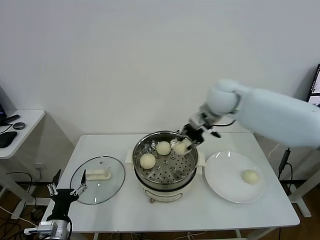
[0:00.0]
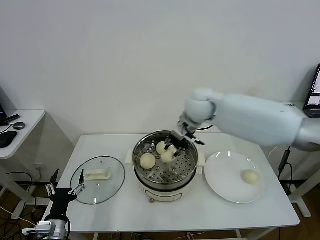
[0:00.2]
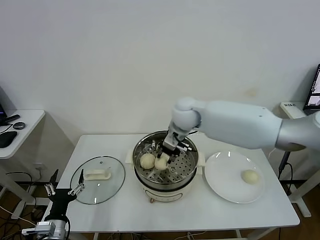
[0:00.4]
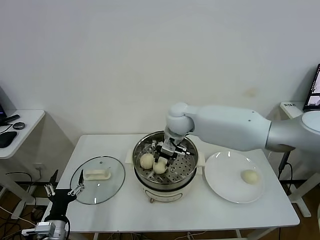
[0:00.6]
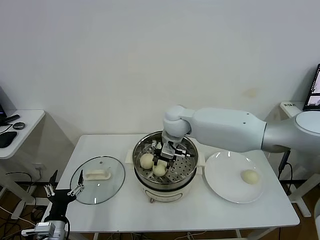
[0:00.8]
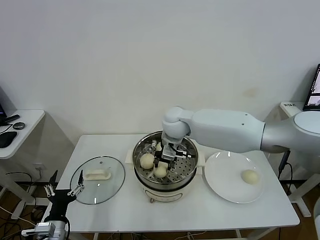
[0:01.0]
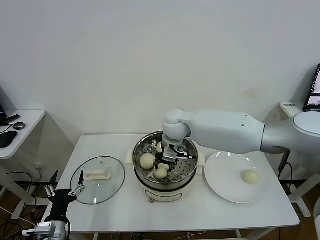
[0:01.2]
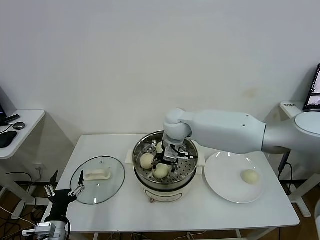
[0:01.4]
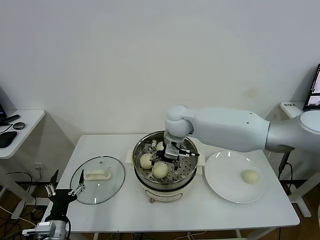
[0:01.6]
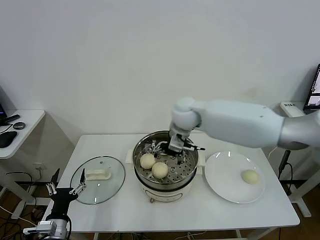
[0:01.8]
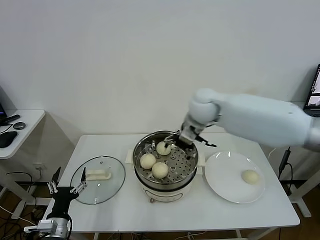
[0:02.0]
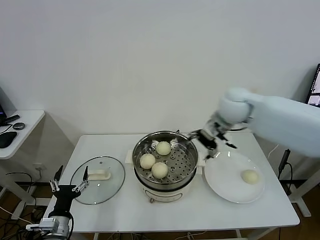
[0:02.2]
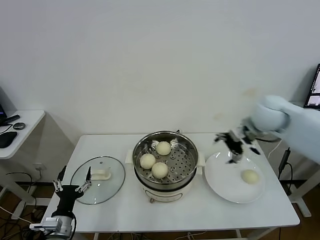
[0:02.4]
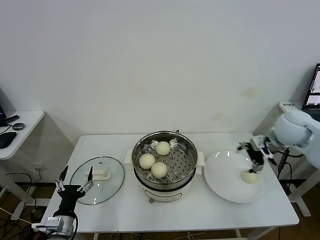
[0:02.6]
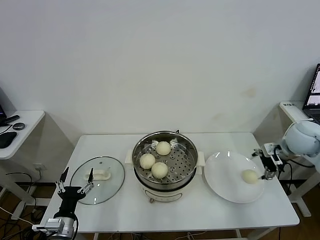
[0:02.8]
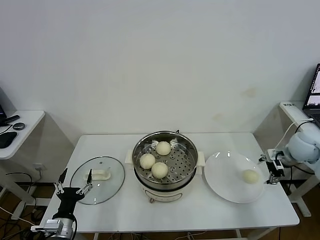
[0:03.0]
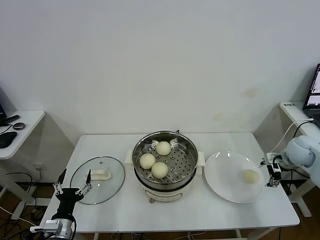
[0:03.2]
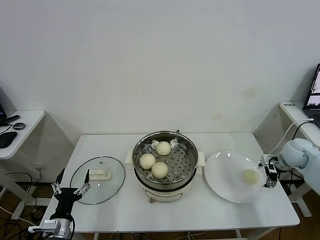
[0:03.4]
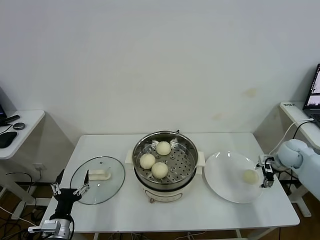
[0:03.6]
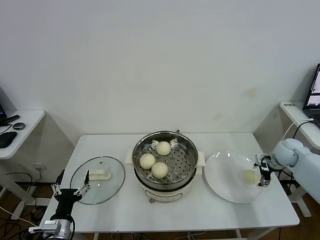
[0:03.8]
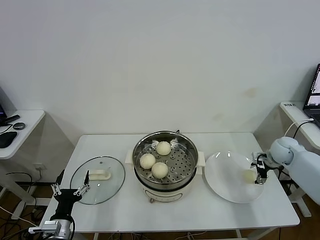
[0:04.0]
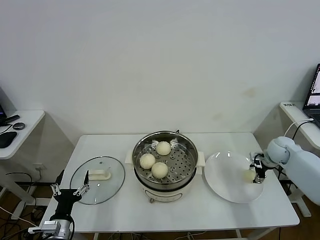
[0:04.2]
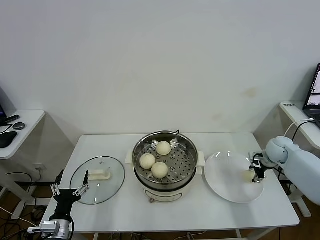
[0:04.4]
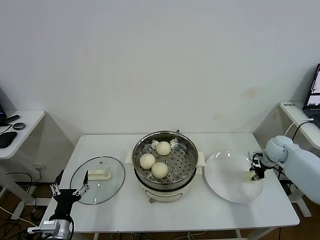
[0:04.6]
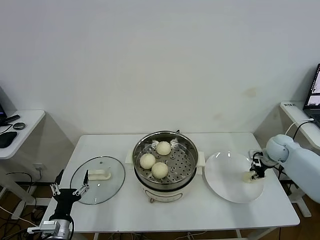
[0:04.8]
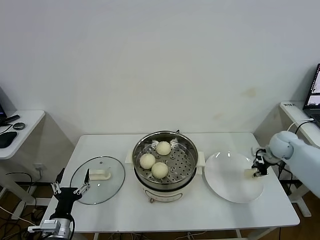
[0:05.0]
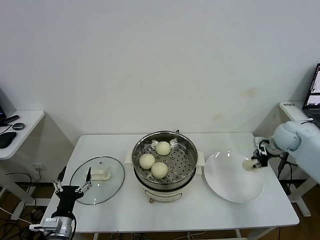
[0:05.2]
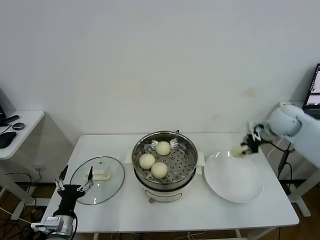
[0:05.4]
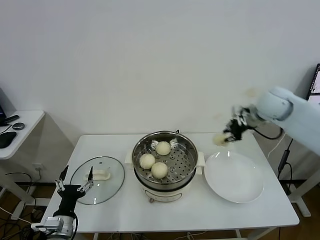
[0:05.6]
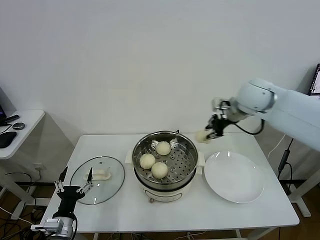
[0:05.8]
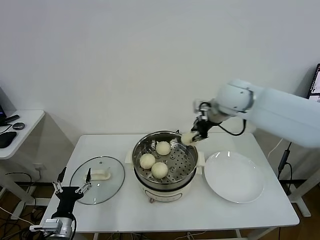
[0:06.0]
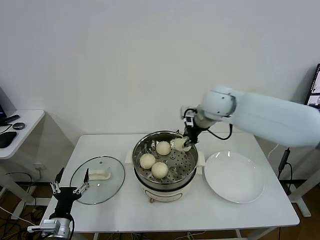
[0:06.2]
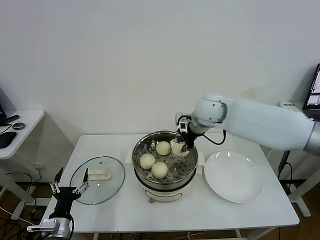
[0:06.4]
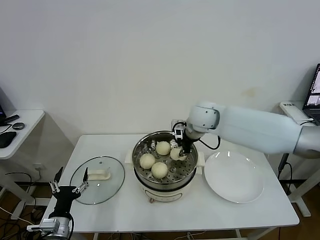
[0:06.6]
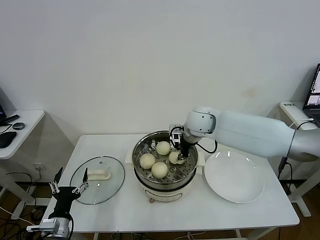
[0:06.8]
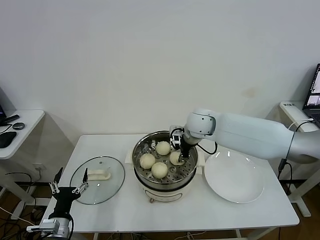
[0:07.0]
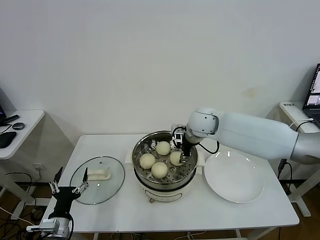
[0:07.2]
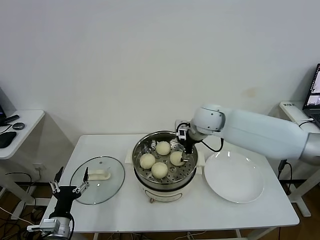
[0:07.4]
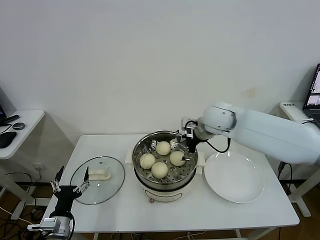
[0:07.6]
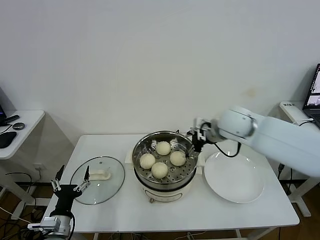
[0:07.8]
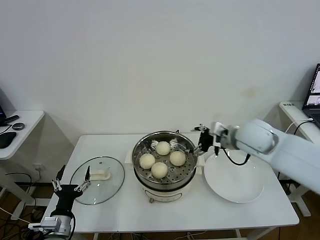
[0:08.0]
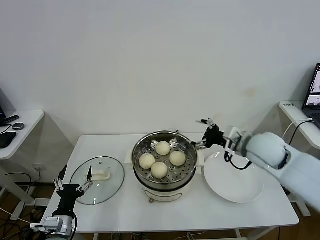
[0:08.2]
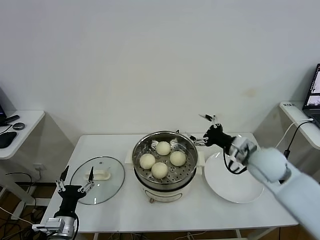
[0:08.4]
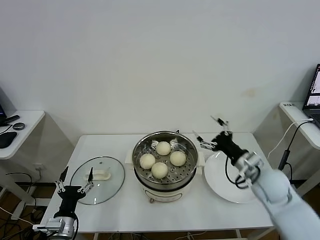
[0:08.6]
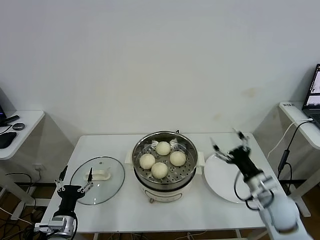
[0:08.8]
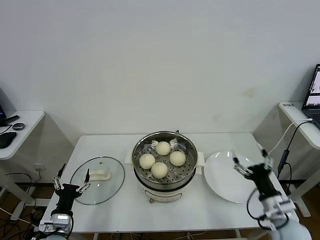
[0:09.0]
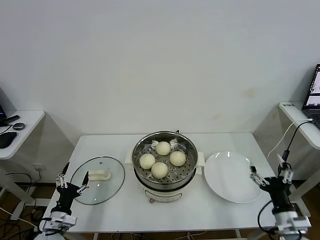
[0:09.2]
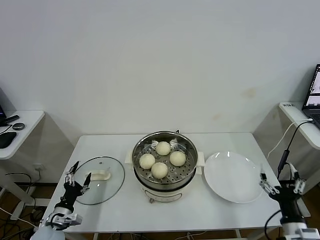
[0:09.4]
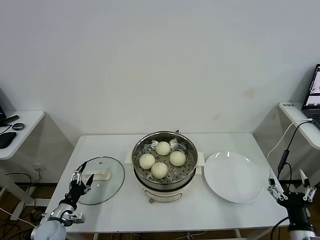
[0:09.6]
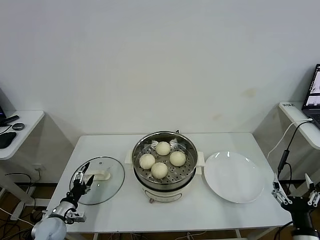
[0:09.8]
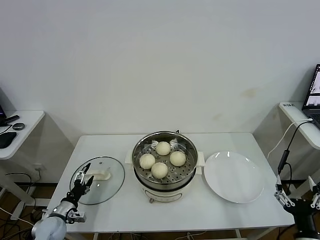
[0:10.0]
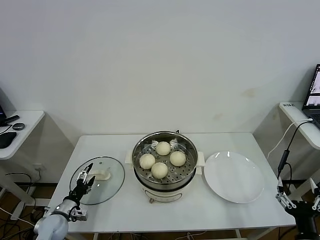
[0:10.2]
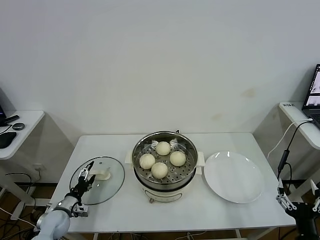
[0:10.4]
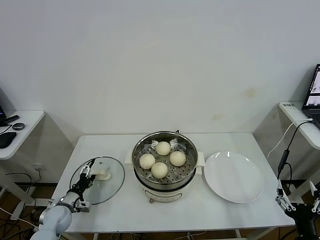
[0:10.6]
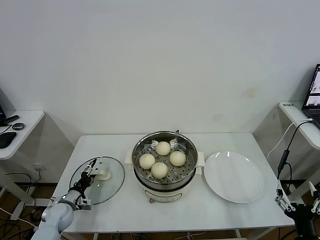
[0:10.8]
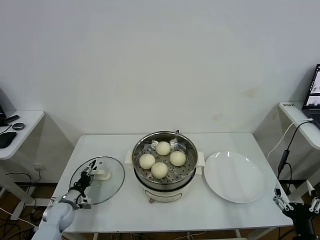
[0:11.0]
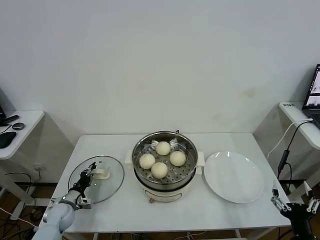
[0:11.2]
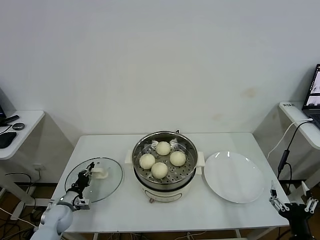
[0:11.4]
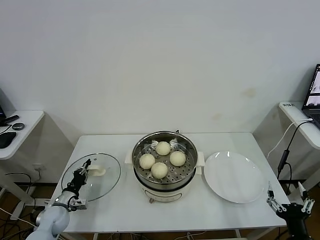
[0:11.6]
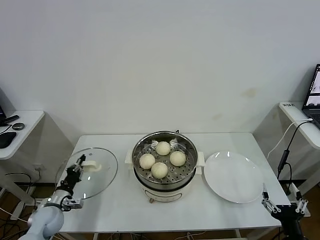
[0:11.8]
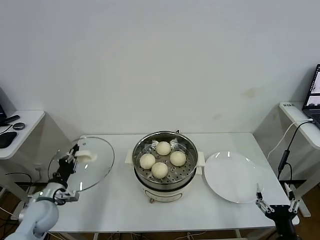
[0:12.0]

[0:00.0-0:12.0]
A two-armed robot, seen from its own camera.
Task of the whole recording: take steamed baozi put them in steamer.
Step, 0:00.0 to 0:01.8: Place the baozi on the steamer with right gripper.
Step, 0:02.0 to 0:04.2: Grasp the baozi in the plate with right gripper.
Step, 0:04.6 to 0:07.4: Place the baozi on the steamer with right gripper.
Step, 0:07.6 to 0:11.4: Grasp the pot lid with left gripper.
0:00.0 to 0:01.6: The right gripper is displaced to the left and downward by roughly 15 cm, and opens its fingers.
0:01.6 to 0:03.0: The right gripper shifts approximately 40 cm to the right.
0:03.0 to 0:04.4: The right gripper shifts about 10 cm downward and forward, and closes up.
0:04.4 to 0:06.0: The right gripper heads to the left and upward, covering about 35 cm, and closes.
0:06.0 to 0:07.6: The right gripper is displaced downward by roughly 5 cm, and opens up.
0:07.6 to 0:09.0: The right gripper moves backward, downward and to the right, some 35 cm.
0:09.0 to 0:10.4: The left gripper heads forward, downward and to the left, covering roughly 15 cm. The right gripper goes roughly 15 cm backward.
0:10.4 to 0:12.0: The left gripper travels upward by about 10 cm, and closes up.

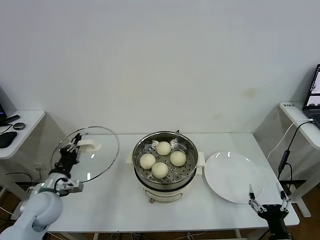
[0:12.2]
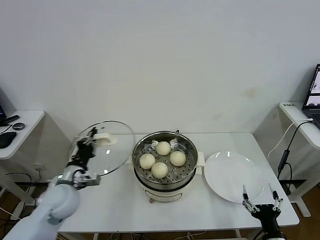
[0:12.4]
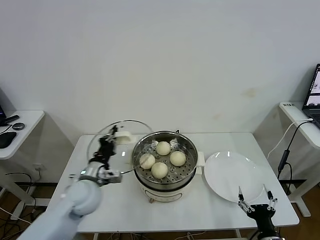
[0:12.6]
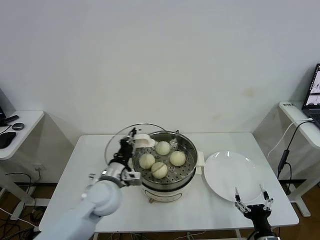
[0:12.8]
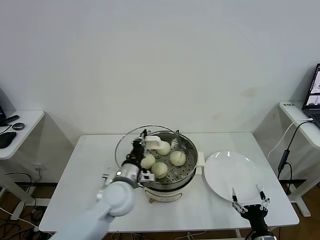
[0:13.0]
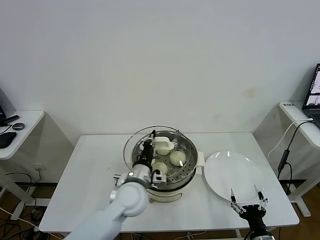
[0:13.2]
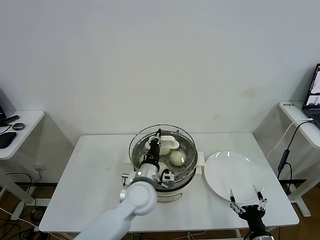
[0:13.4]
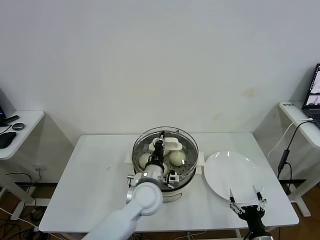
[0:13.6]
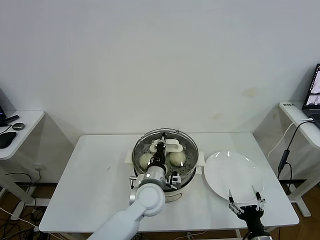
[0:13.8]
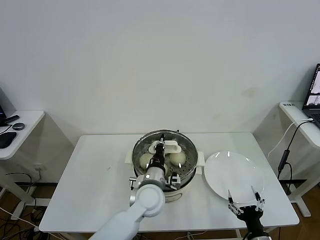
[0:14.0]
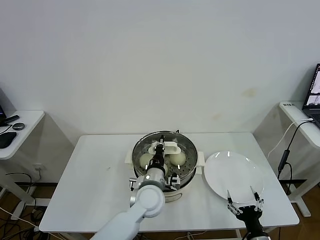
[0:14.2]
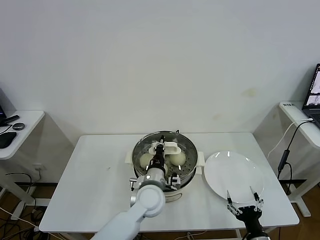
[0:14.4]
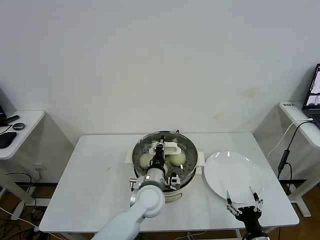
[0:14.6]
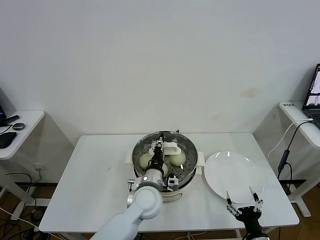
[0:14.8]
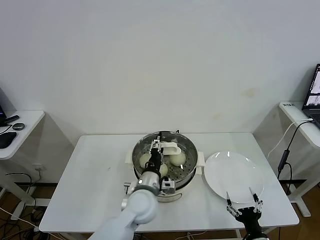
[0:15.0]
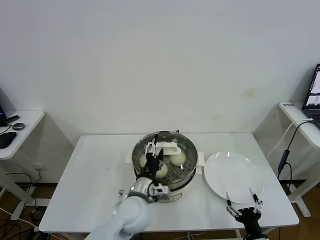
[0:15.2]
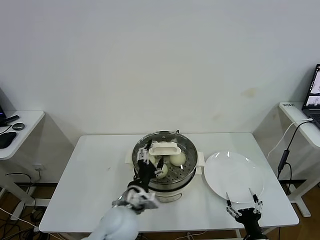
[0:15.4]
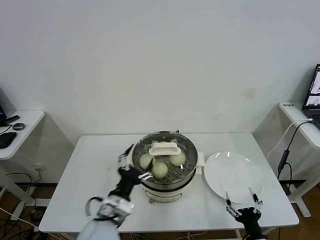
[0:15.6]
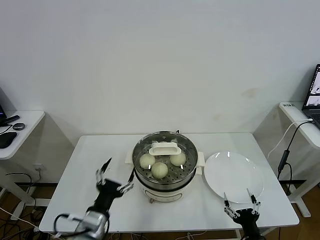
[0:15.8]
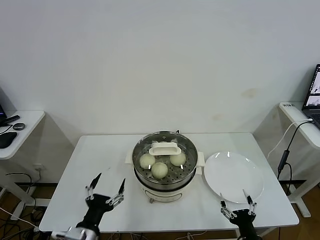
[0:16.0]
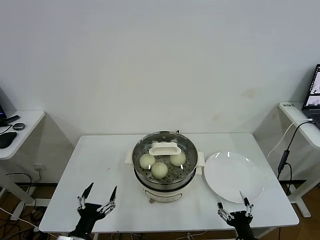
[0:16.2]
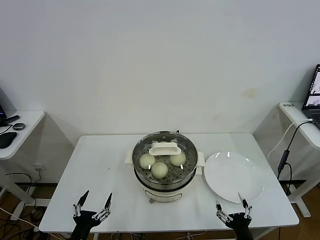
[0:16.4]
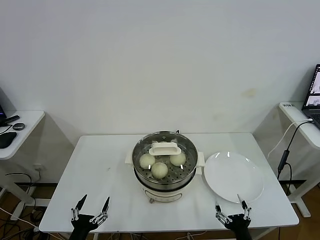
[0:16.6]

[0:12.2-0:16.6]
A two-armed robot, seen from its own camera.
Task of the whole recording: take steamed baozi put them in steamer.
Step, 0:12.2 to 0:15.0: Place the pot lid on the steamer with left gripper.
0:12.2 to 0:13.6: The left gripper is displaced to the right by roughly 30 cm; the right gripper moves approximately 5 cm.
0:13.6 to 0:15.2: The left gripper opens.
0:15.2 to 0:16.6: The left gripper moves to the left and backward, roughly 30 cm.

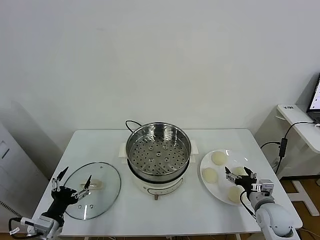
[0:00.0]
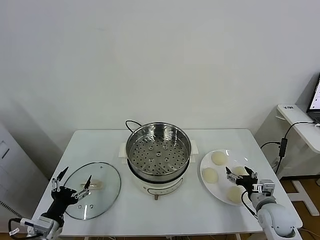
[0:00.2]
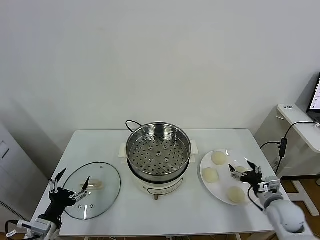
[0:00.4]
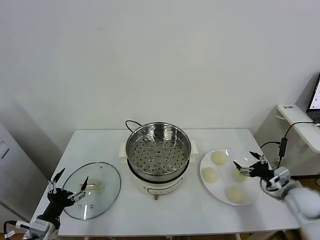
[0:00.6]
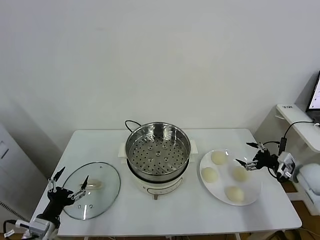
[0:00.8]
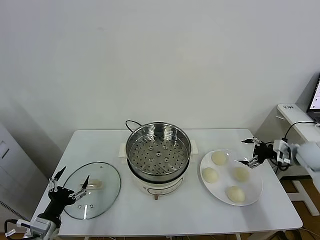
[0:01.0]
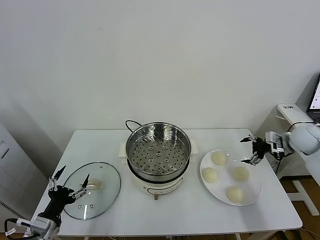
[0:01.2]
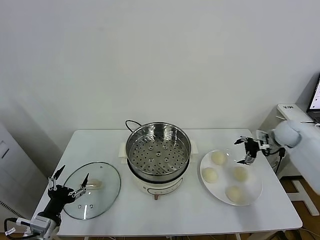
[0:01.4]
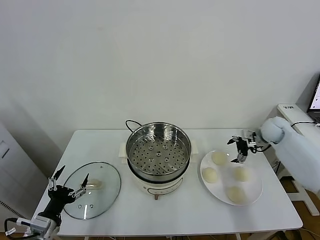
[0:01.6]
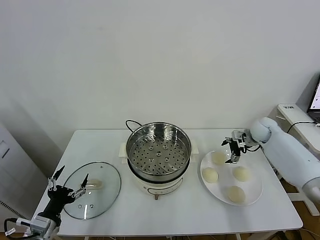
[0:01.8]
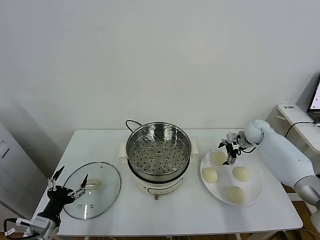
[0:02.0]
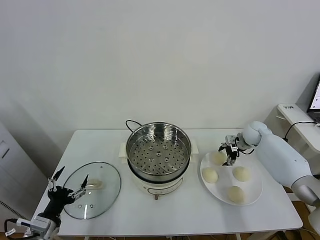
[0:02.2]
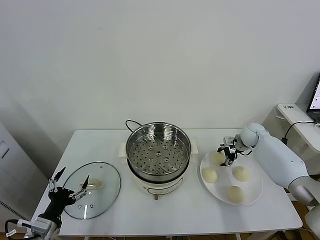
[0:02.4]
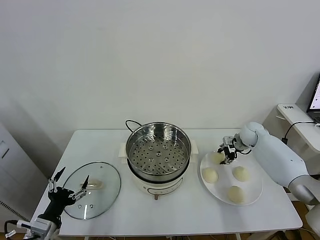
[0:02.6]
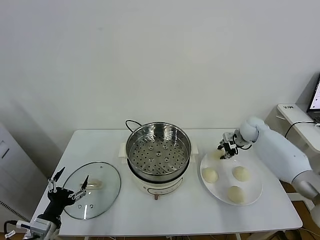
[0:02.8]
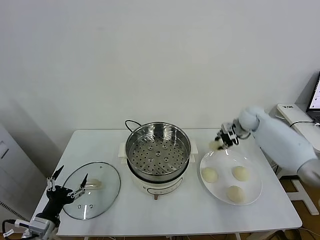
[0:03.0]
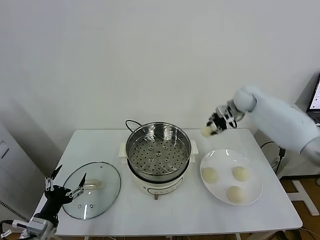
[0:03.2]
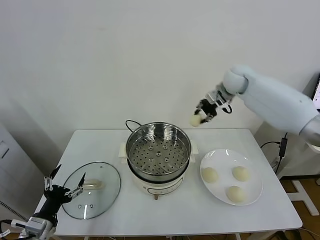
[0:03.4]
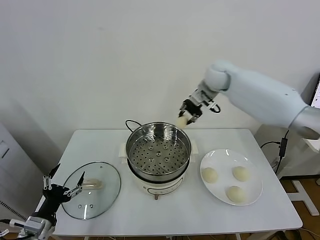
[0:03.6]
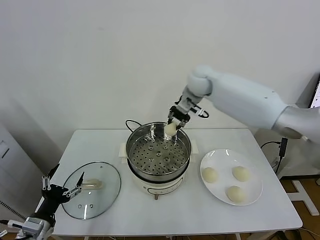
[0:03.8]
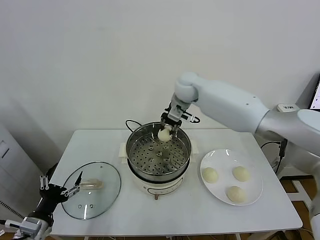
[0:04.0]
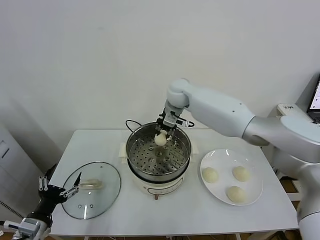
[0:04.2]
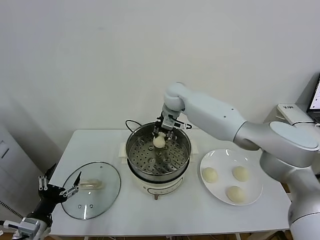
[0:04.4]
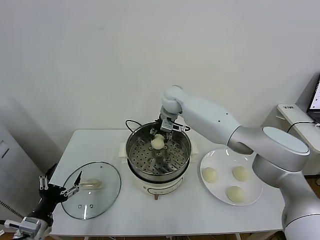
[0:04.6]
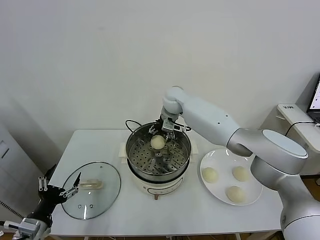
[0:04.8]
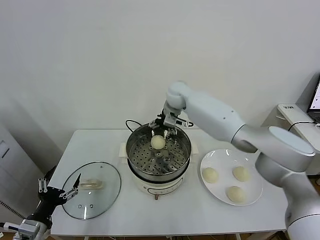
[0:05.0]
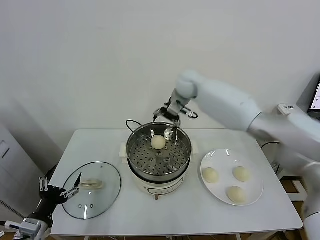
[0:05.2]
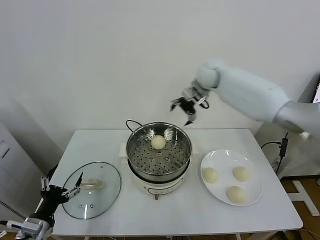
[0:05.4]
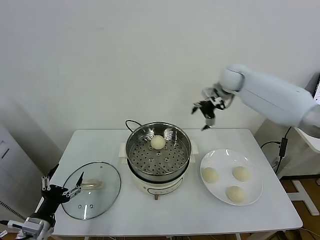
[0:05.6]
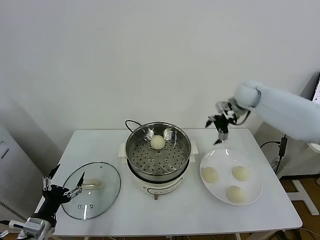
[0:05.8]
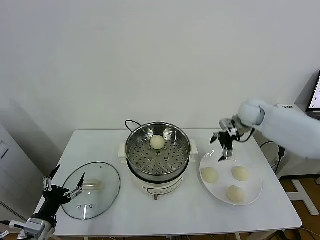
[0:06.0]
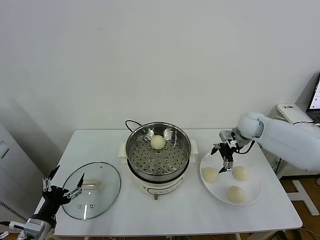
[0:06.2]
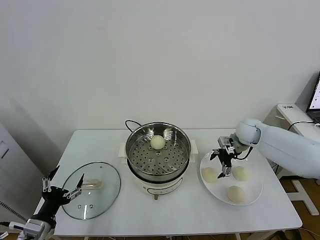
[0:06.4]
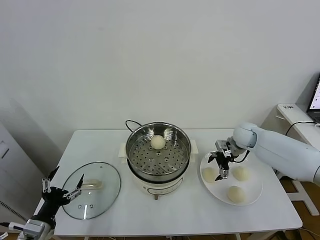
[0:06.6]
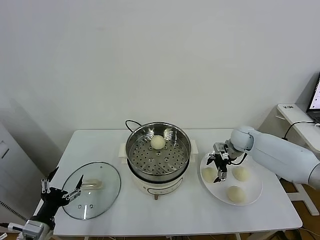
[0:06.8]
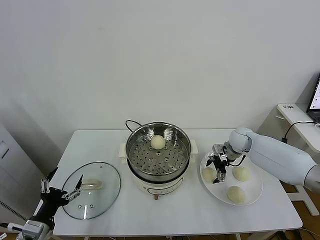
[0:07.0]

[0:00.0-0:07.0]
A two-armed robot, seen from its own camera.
Task of the whole recording: take steamed baozi put them in steamer.
Step, 0:00.0 to 0:02.4: Grasp the baozi in the plate with right gripper.
Step, 0:02.6 to 0:04.8: Place the baozi on the steamer with right gripper.
0:01.4 to 0:02.8: The right gripper goes some 10 cm to the left and forward, and closes its fingers.
0:02.8 to 0:04.2: The right gripper heads to the left and upward, covering roughly 35 cm.
0:04.2 to 0:05.6: The right gripper is displaced to the right by approximately 20 cm, and opens its fingers.
0:05.6 to 0:07.0: The right gripper heads downward, covering approximately 20 cm.
